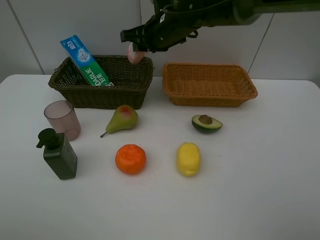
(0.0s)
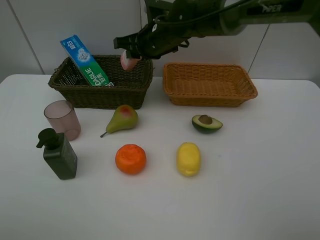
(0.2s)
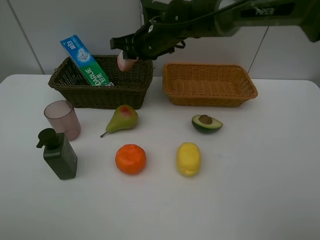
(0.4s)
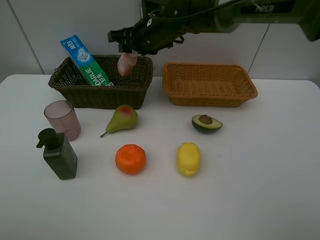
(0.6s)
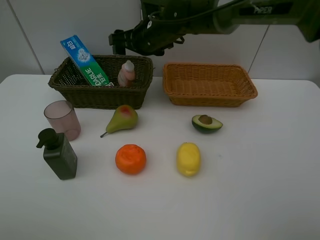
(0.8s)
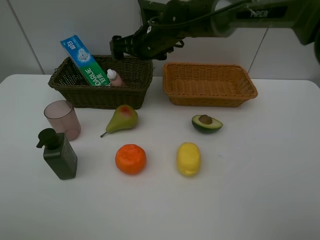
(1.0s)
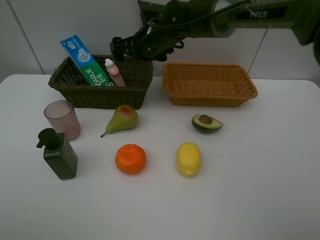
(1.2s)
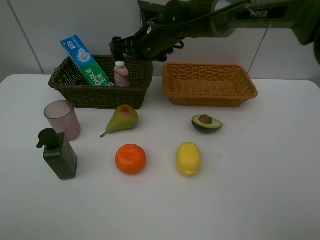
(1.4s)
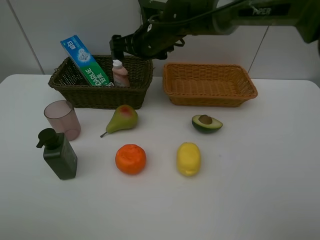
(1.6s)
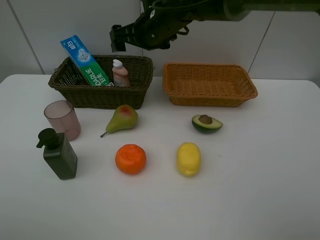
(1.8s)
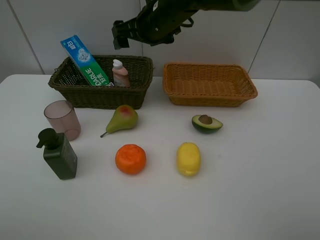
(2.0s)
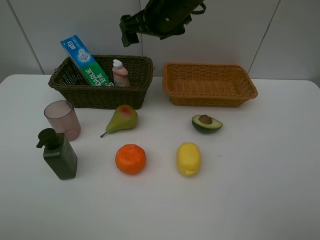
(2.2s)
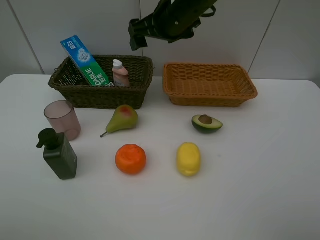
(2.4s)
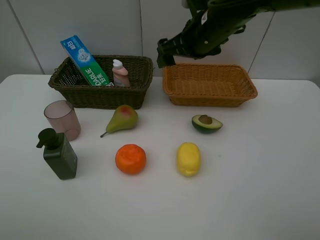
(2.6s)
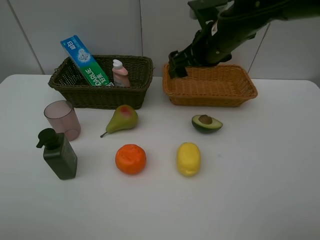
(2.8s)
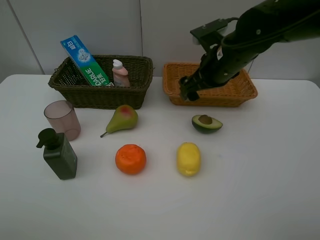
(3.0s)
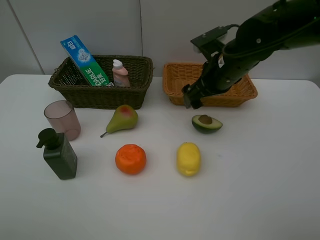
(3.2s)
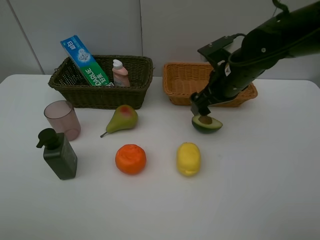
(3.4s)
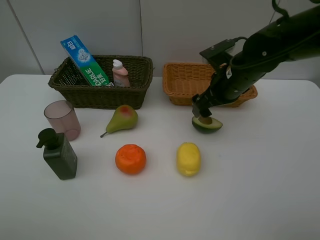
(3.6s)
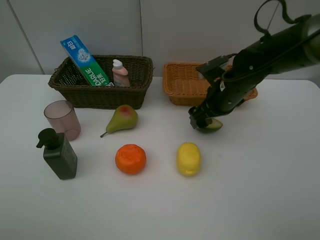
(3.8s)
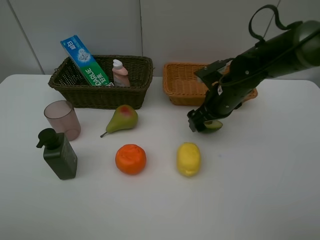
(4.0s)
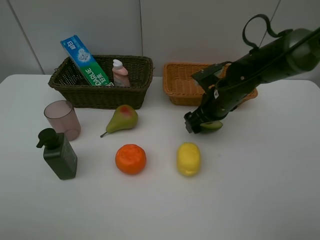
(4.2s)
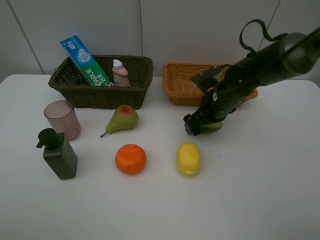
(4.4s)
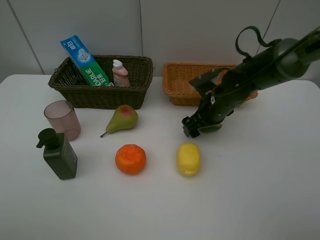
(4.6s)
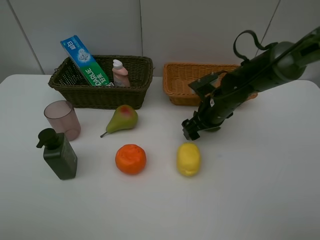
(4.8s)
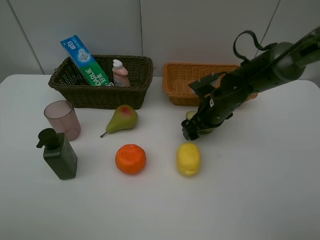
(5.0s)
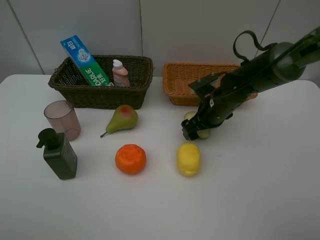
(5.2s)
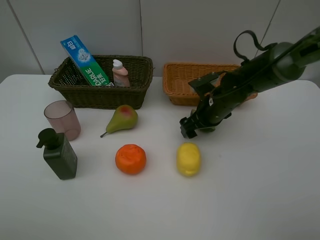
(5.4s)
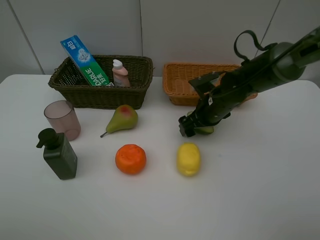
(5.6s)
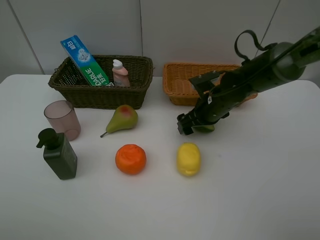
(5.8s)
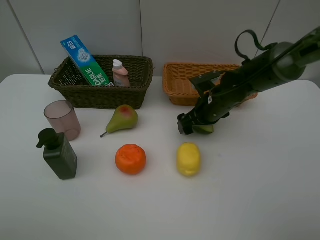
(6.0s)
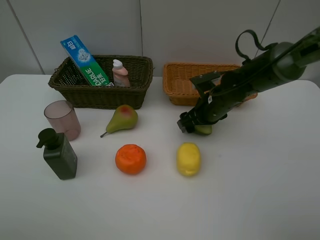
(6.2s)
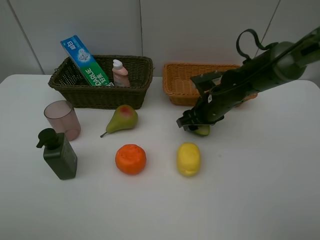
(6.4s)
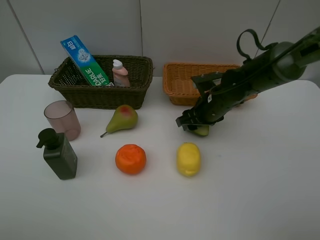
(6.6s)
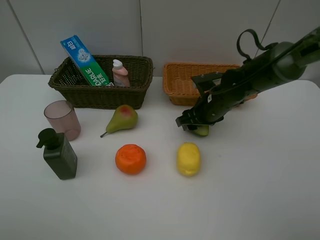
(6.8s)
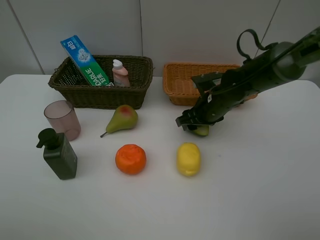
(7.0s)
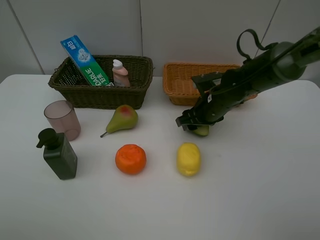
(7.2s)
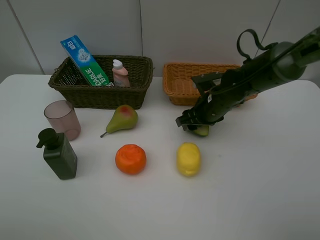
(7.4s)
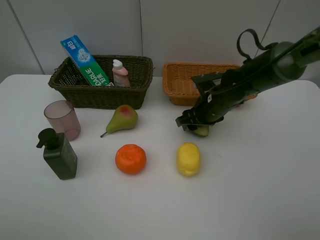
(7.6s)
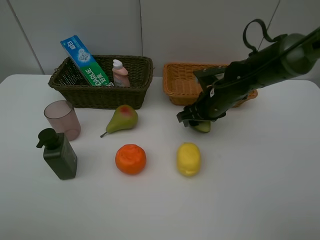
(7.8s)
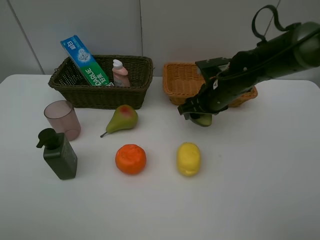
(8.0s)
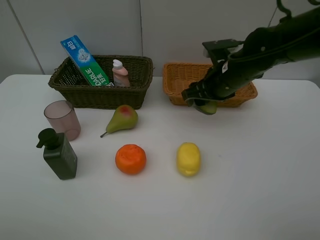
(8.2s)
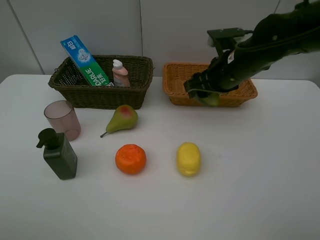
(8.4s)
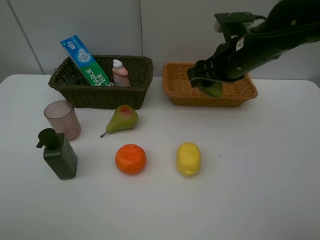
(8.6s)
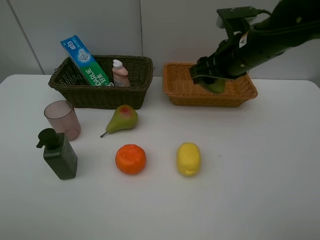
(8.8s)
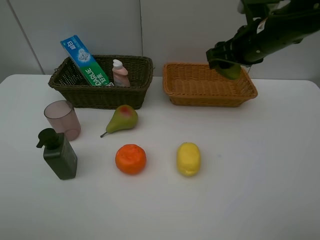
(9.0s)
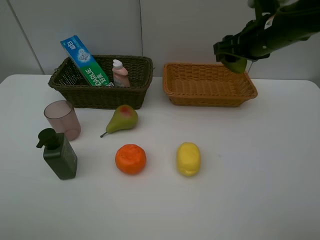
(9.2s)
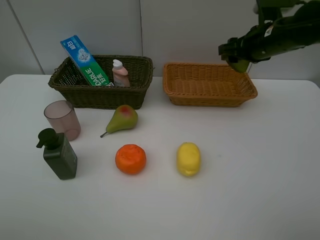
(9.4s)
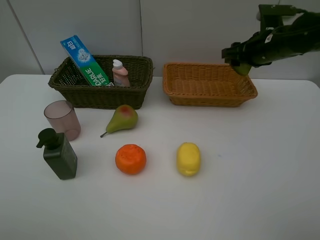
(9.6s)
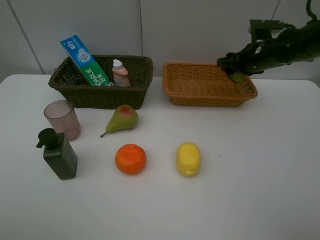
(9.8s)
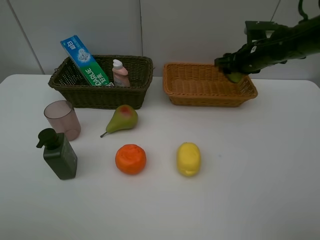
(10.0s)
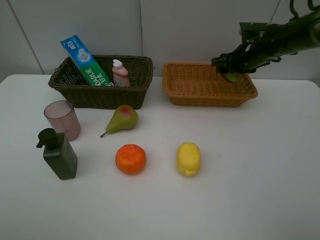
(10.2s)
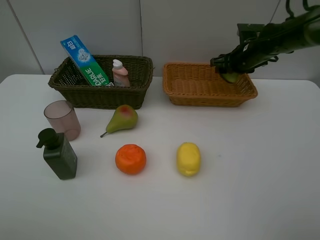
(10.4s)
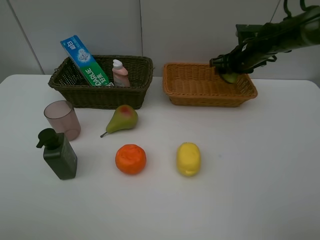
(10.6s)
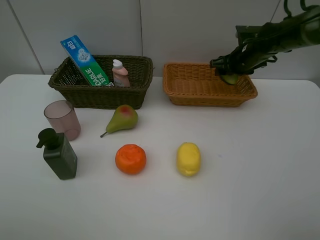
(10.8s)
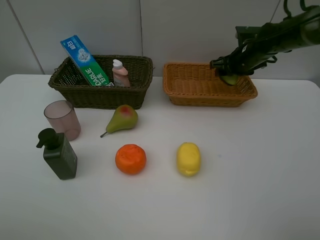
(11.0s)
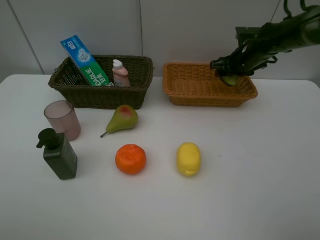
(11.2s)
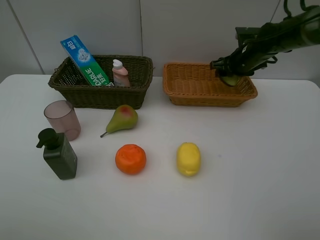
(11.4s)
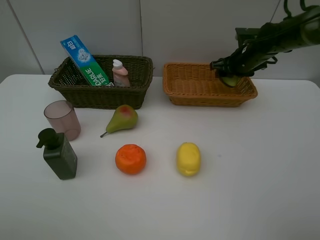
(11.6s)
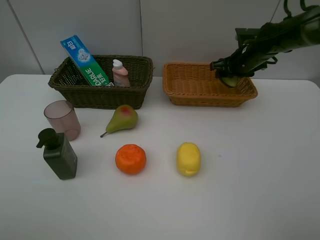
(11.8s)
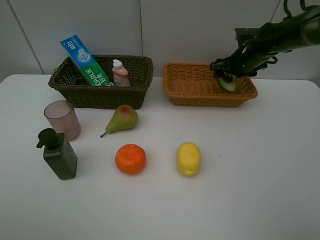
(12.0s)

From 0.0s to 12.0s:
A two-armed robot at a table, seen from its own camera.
Task of the whole recording: Place multiple objects separately in different baskets.
Step, from 1.2s to 7.8s: Pick up the avocado with right gripper.
From 0.0s to 1.6s: The right gripper opens up.
From 1.6s to 3.0s: The right gripper moves to the right and backward, approximately 15 cm.
From 3.0s to 4.4s: The right gripper travels downward by approximately 10 cm.
From 4.4s to 6.0s: The grippers move only a little.
From 6.0s to 7.6s: The right gripper closes up.
From 7.6s to 9.0s: The right gripper goes approximately 15 cm upward.
From 9.0s to 10.4s: The right gripper travels forward and downward by roughly 15 cm.
From 10.4s to 12.0s: Neither gripper changes place.

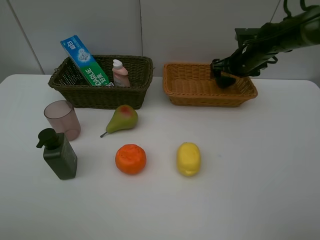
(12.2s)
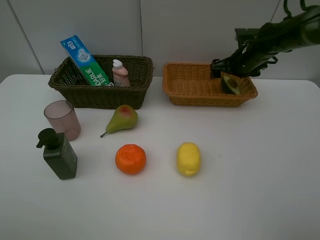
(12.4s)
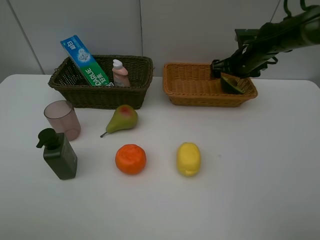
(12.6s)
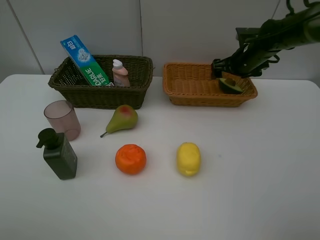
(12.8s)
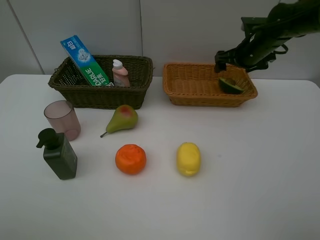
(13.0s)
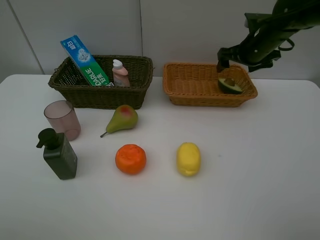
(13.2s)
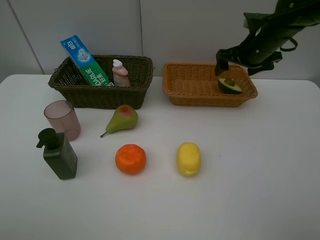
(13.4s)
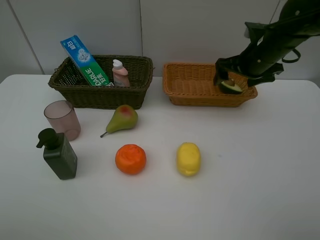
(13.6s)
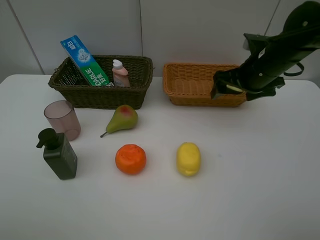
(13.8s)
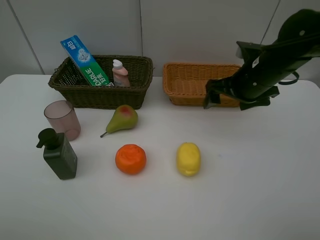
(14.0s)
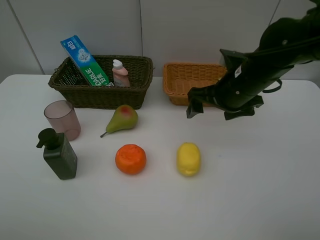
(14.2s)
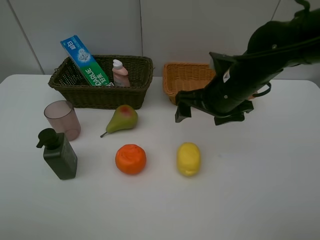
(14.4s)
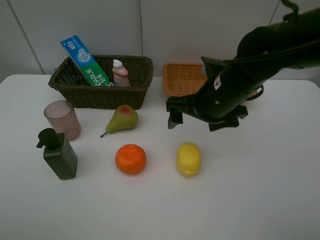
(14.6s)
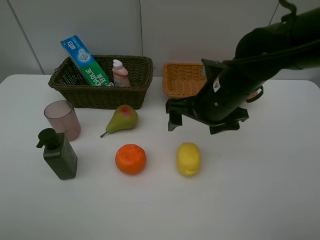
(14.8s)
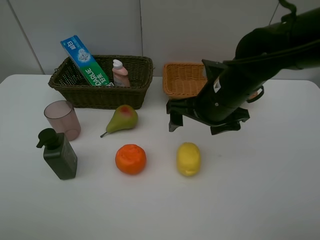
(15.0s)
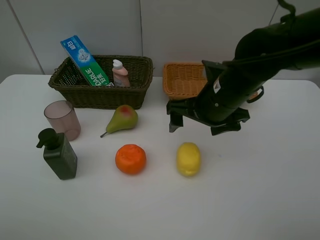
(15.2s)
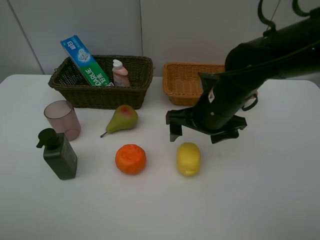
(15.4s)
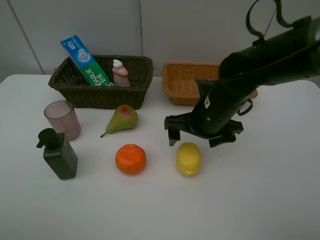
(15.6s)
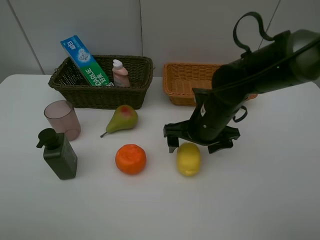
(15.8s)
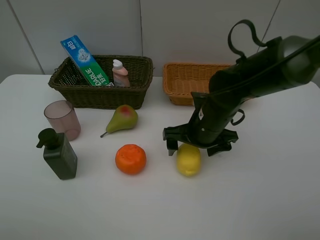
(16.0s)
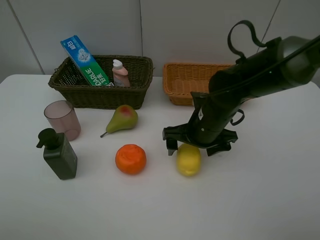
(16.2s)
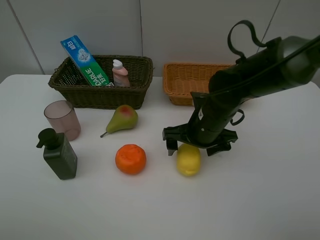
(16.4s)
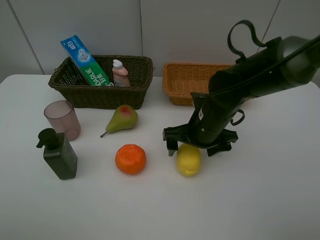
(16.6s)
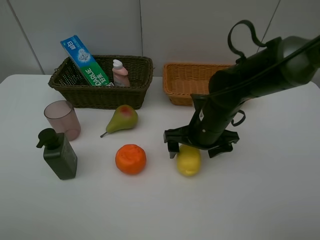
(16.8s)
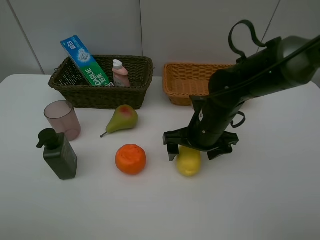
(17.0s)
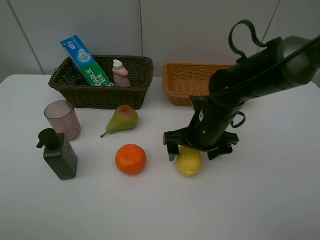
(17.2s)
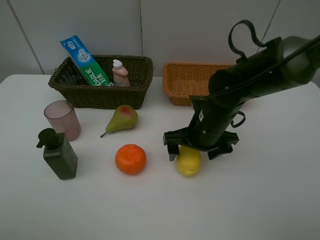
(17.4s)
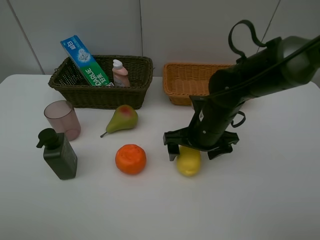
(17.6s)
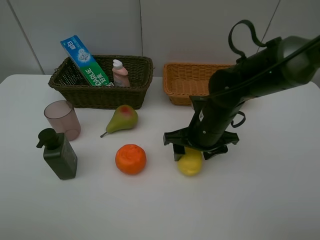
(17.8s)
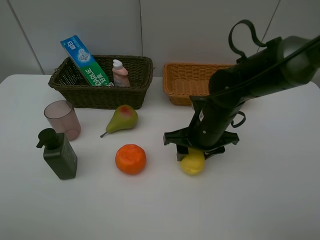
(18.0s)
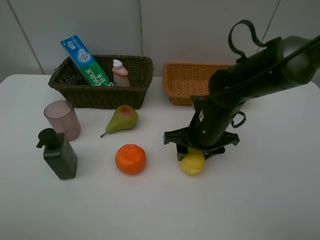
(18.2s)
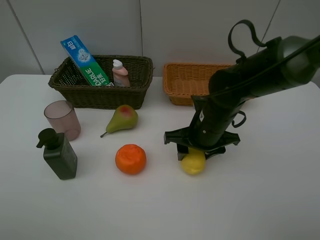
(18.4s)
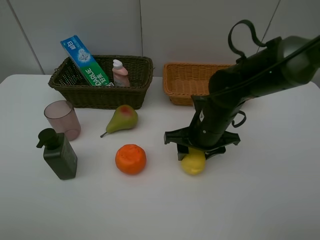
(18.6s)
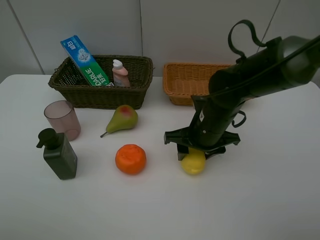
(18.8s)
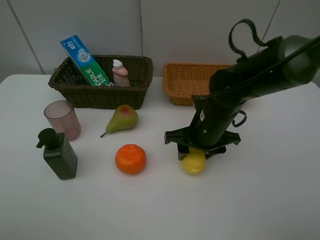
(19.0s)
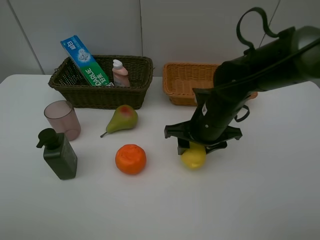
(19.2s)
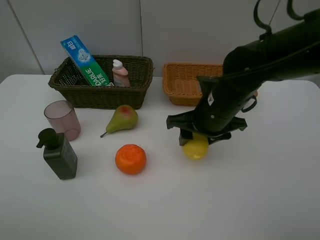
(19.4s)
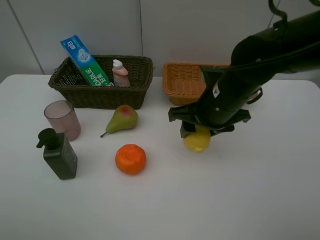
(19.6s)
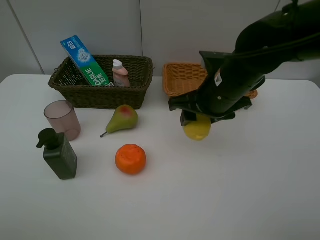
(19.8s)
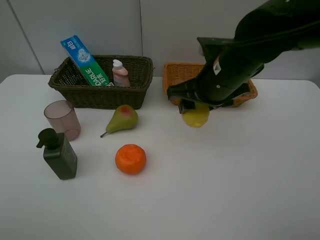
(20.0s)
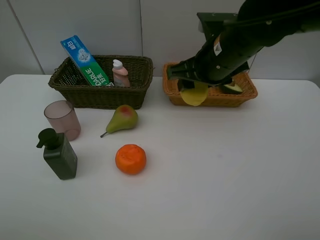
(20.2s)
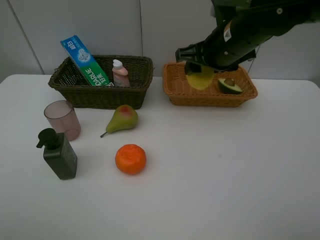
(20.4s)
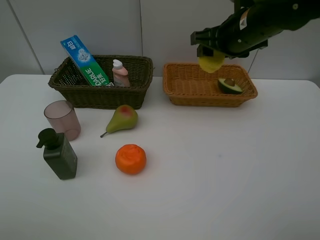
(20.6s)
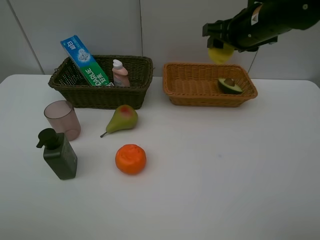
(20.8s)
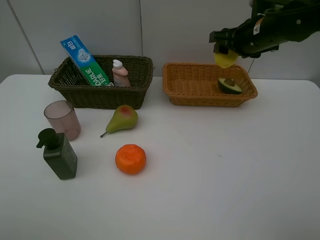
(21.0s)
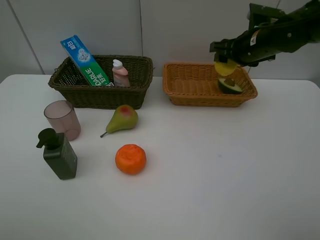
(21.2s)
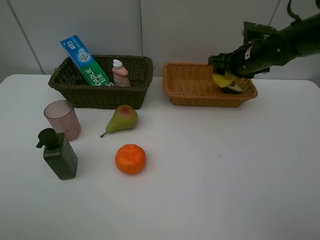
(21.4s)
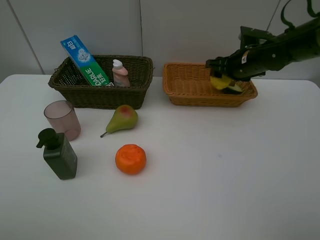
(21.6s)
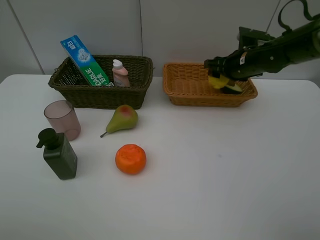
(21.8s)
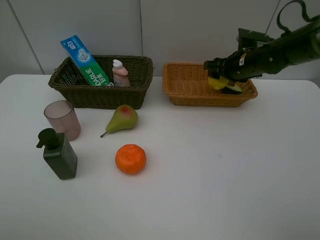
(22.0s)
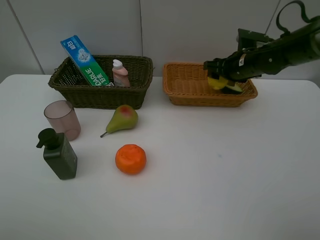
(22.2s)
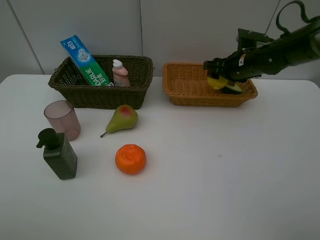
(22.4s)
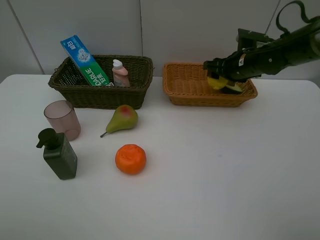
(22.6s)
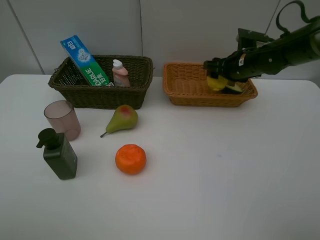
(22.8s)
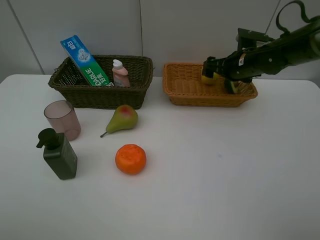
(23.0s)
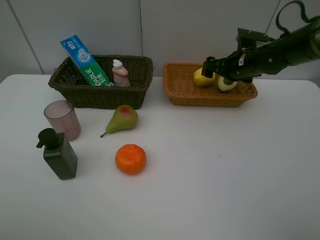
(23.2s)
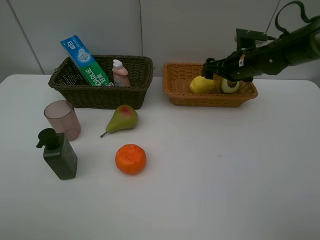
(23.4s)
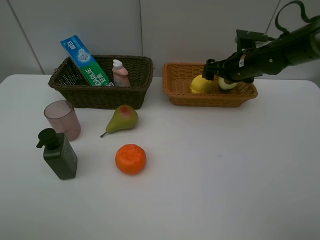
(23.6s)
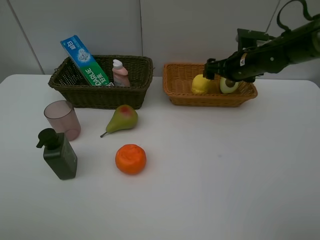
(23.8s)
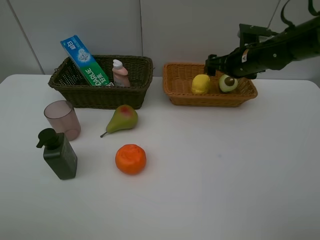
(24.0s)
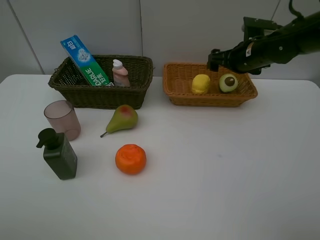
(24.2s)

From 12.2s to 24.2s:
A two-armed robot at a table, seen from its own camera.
Task of the whole recording: Place multiple objects separately in different baskets.
Step, from 12.6s to 19.2s: Pick up the lemon with right gripper.
Step, from 19.4s to 23.2s: Place the lemon in the light basket with right gripper.
From 12.2s to 13.8s: The right gripper heads backward, covering some 15 cm.
From 13.8s to 15.2s: The right gripper goes roughly 15 cm to the left and backward.
From 15.2s to 16.6s: The right gripper moves downward, approximately 5 cm.
From 16.6s to 18.2s: The right gripper closes up.
From 18.2s to 19.8s: The right gripper is displaced upward by about 10 cm.
From 19.8s to 21.2s: The right gripper shifts some 15 cm forward and to the right.
From 21.2s to 22.6s: The right gripper shifts approximately 5 cm downward.
From 22.6s to 24.2s: The right gripper opens its fingers.
